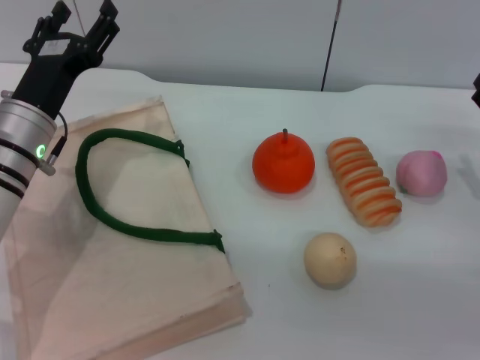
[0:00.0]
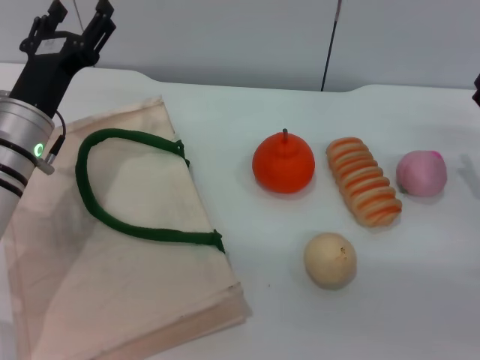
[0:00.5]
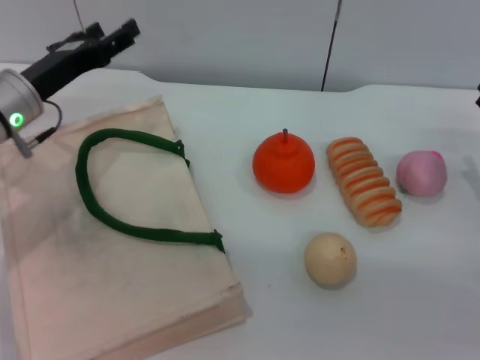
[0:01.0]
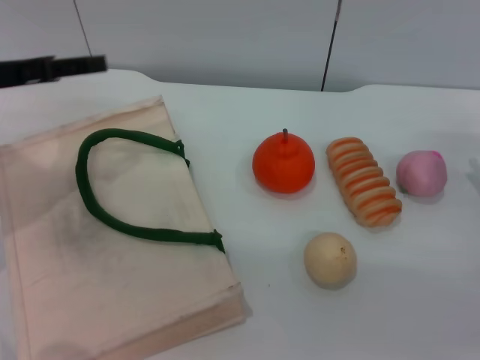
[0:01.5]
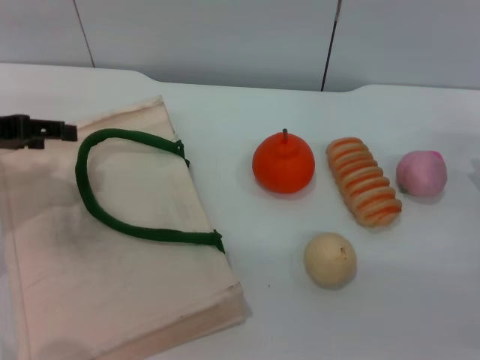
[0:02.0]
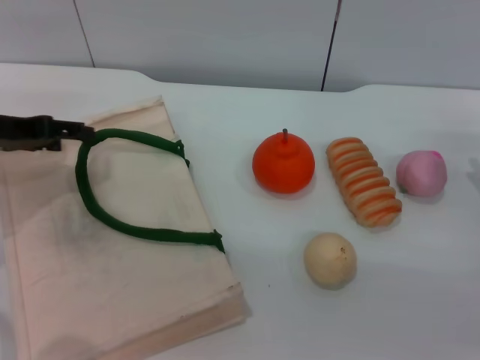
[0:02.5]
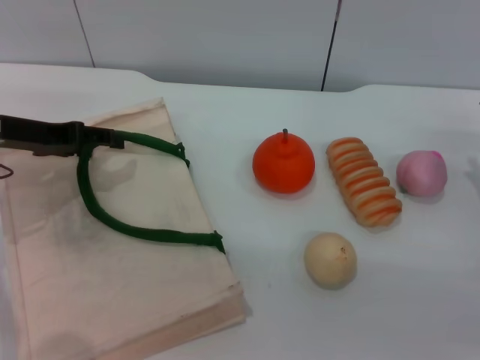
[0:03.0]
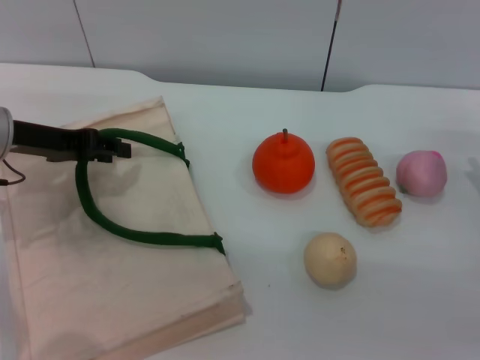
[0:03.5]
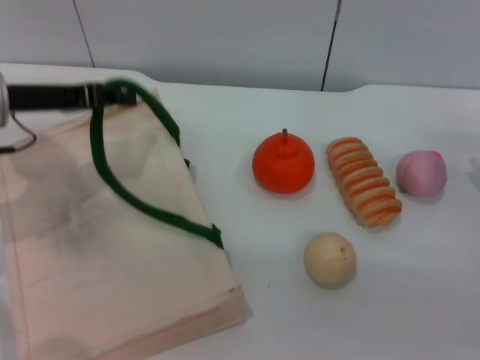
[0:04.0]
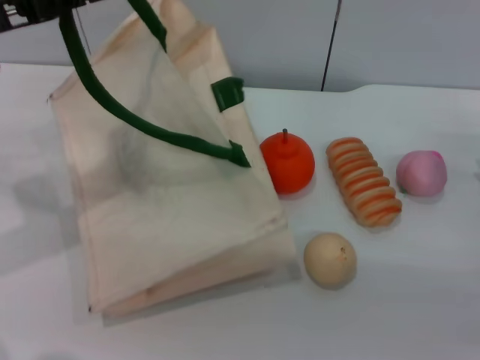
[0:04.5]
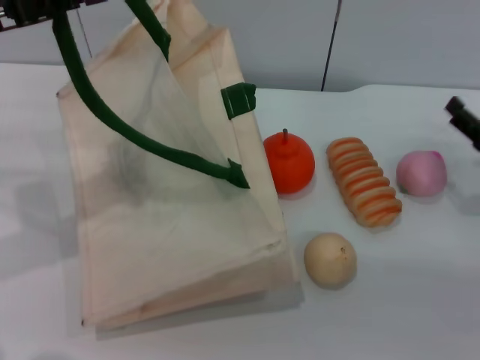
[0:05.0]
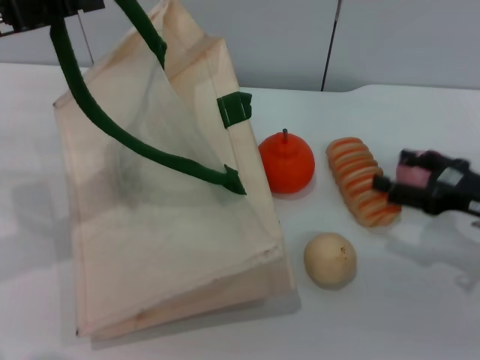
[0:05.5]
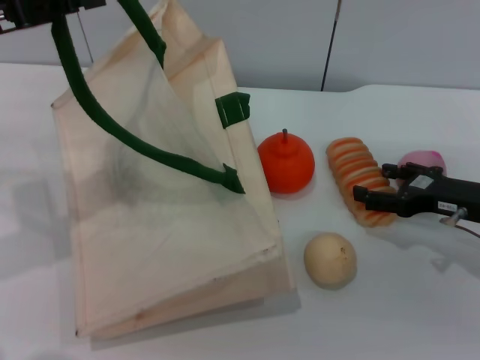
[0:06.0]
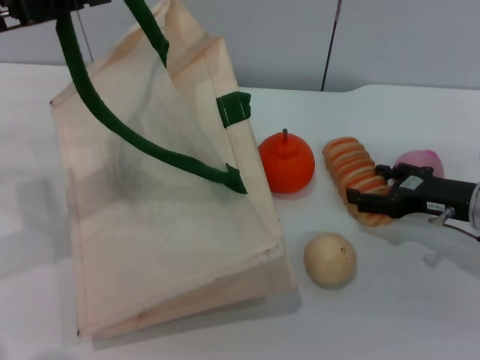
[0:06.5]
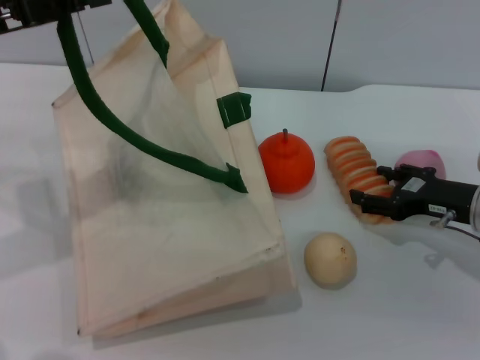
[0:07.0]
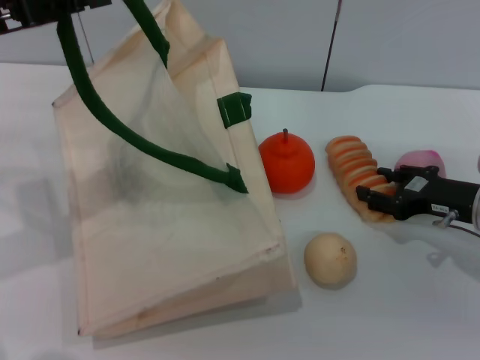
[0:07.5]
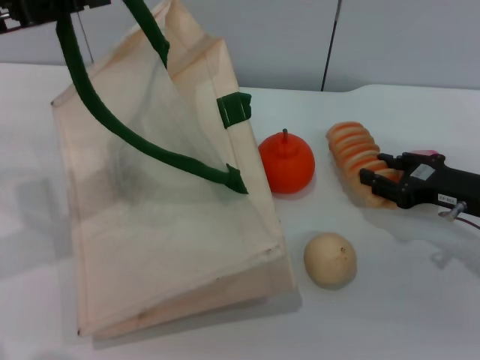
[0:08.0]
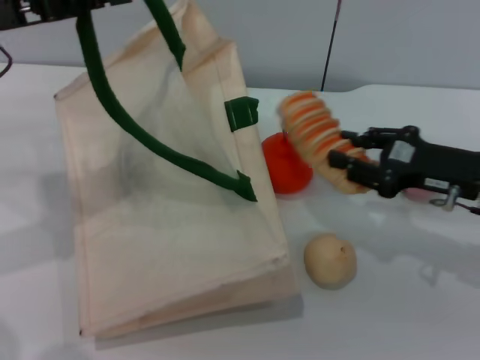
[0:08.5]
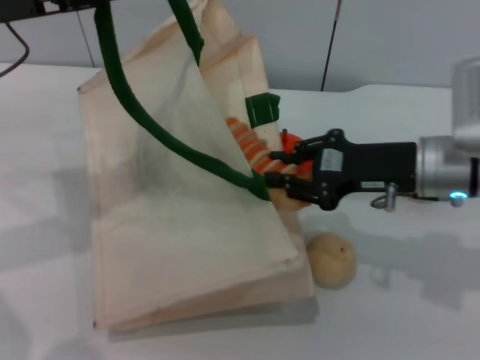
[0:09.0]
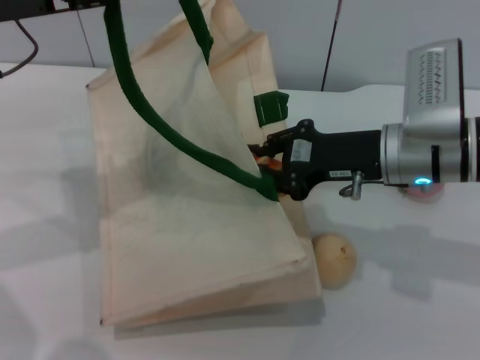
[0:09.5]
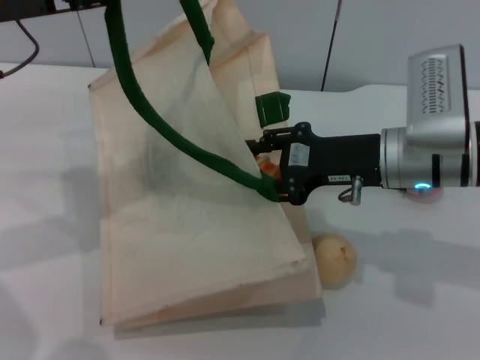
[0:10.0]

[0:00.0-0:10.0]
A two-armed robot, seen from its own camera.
Task of the whole recording: pick up the bread from the table and place it in the white handbag.
Step, 0:00.0 to 0:04.5: Lift the woven bag with the left gripper to open it.
Step, 0:05.0 to 0:08.0: Pick up the bread with the right gripper.
0:00.0 to 0:02.0: The left gripper moves to the left and upward, approximately 15 cm.
0:02.0 to 0:04.0: The left gripper goes about 5 cm to the right, and closes.
0:04.0 to 0:06.0: The left gripper goes approximately 5 cm upward.
0:06.0 to 0:08.0: The right gripper closes up.
0:08.0 to 0:10.0: The right gripper goes roughly 15 cm to the left and upward.

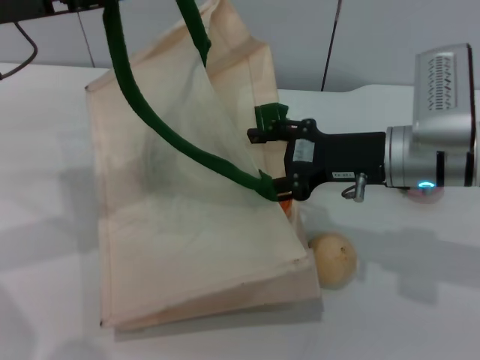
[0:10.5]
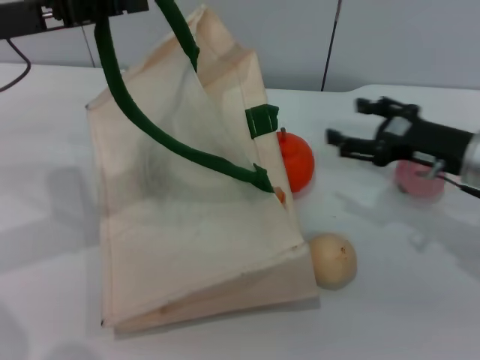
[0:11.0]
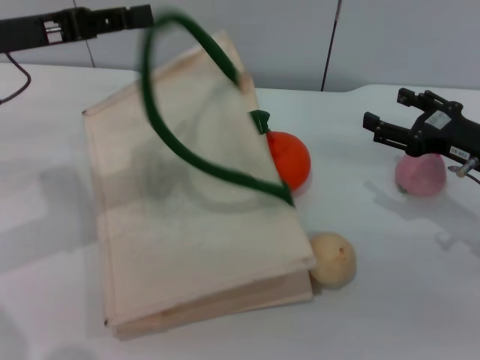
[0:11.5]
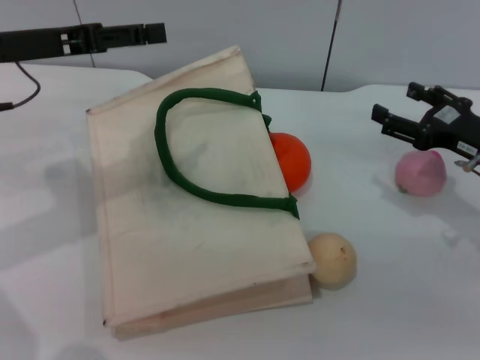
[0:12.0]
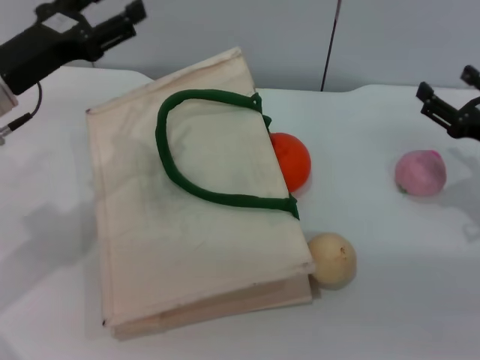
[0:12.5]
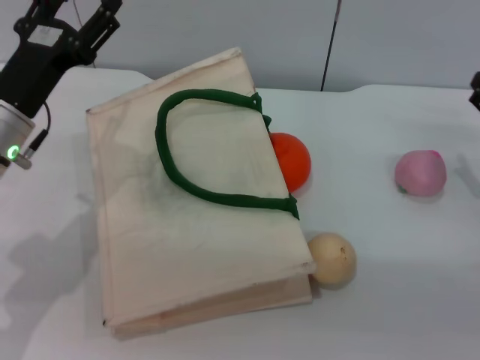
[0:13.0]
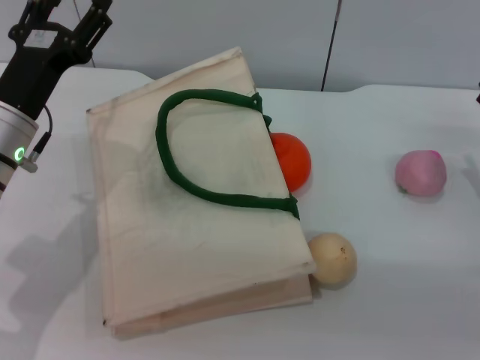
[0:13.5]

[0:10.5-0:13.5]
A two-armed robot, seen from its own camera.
Task of the whole recording: pick up the bread from the table and place it in the white handbag.
Step, 0:11.0 to 0:12.0: Lower the woven bag with the left gripper to close it.
0:10.5 to 0:12.0: The right gripper travels to the right by roughly 10 cm. The left gripper opens up.
0:12.0 to 0:13.5: The right gripper shifts by roughly 5 cm. Meanwhile the left gripper travels downward by about 10 cm.
